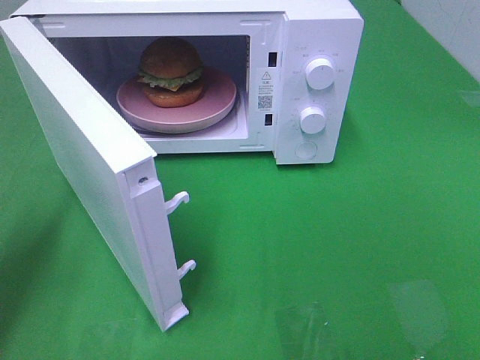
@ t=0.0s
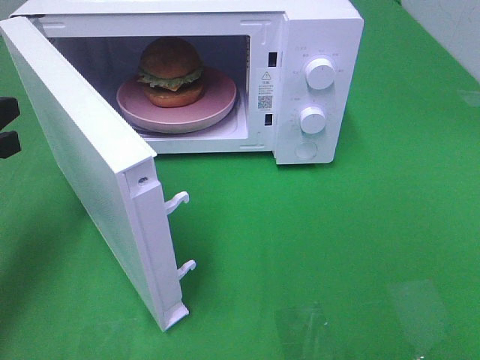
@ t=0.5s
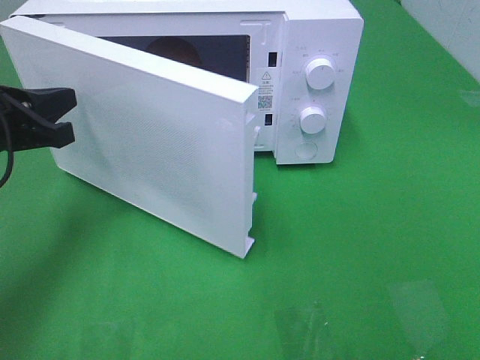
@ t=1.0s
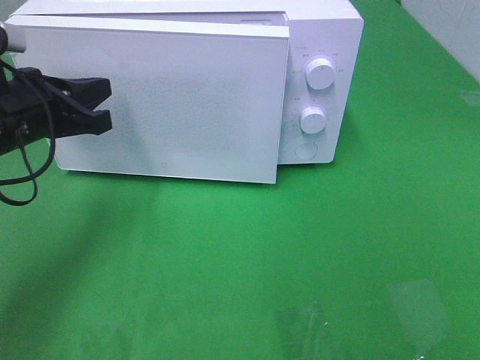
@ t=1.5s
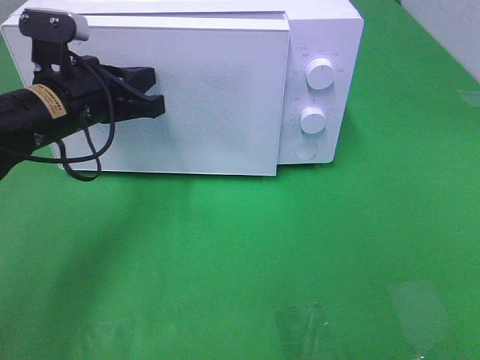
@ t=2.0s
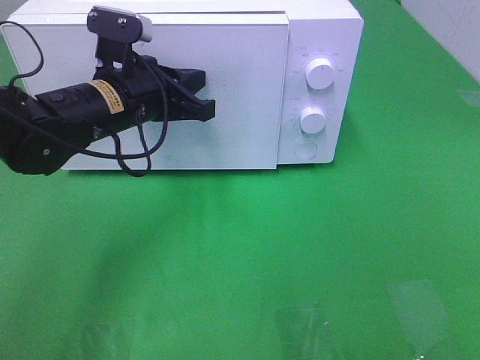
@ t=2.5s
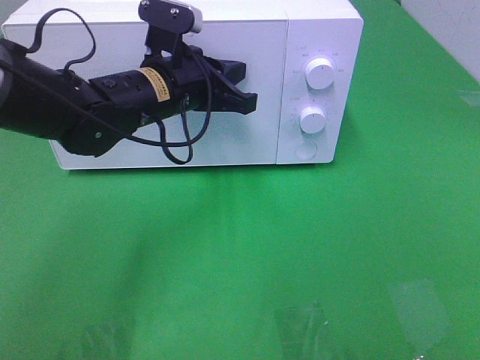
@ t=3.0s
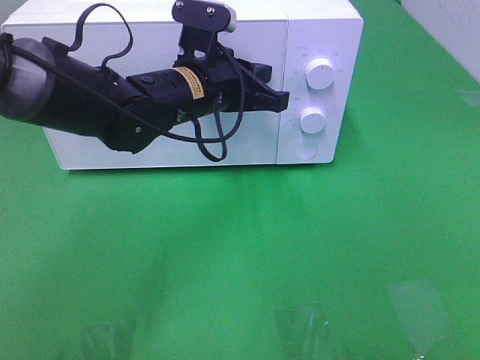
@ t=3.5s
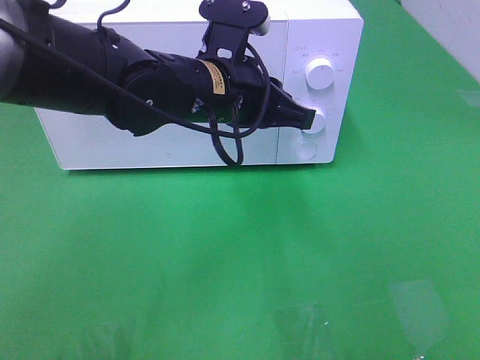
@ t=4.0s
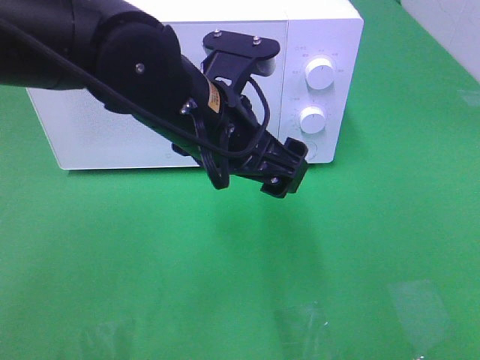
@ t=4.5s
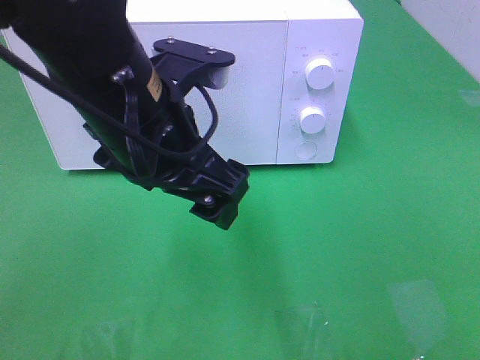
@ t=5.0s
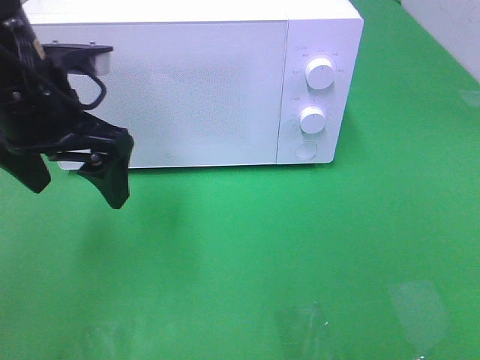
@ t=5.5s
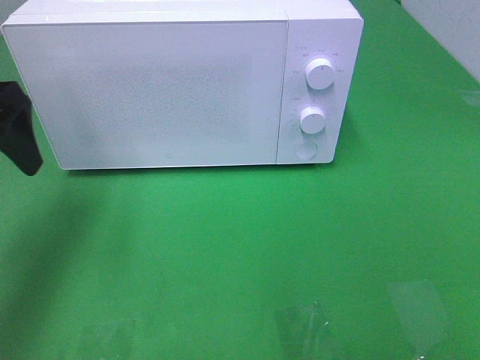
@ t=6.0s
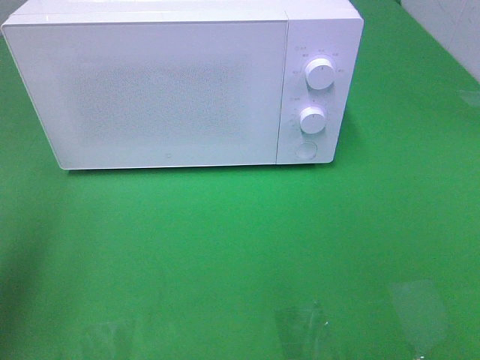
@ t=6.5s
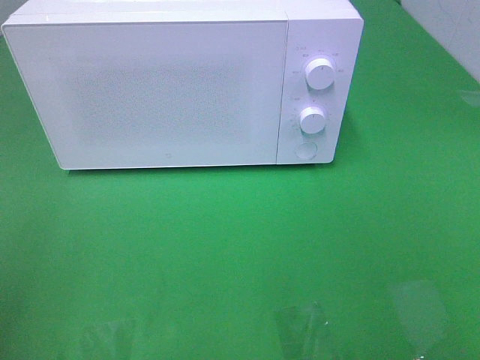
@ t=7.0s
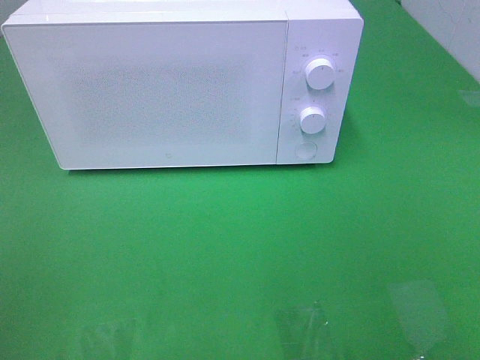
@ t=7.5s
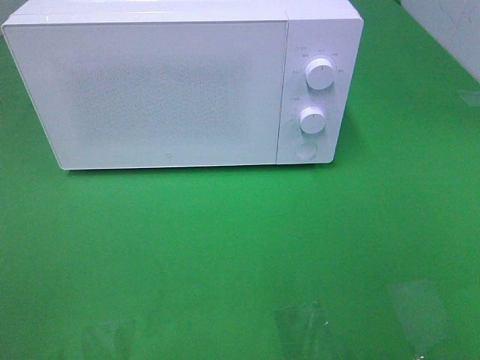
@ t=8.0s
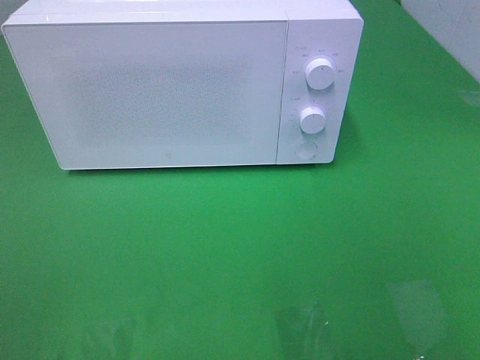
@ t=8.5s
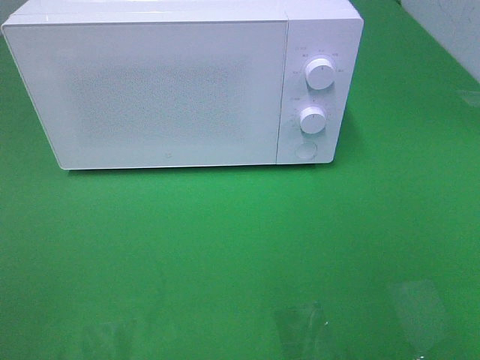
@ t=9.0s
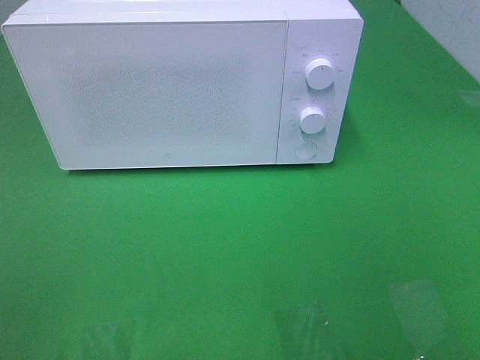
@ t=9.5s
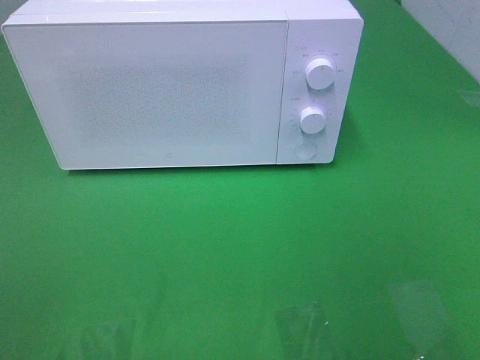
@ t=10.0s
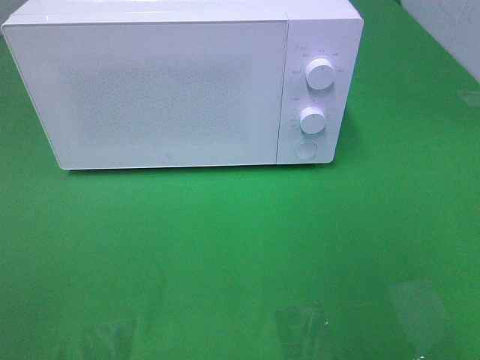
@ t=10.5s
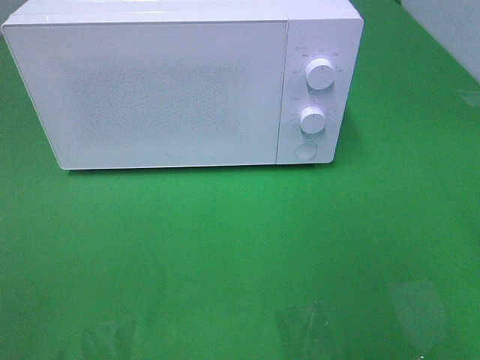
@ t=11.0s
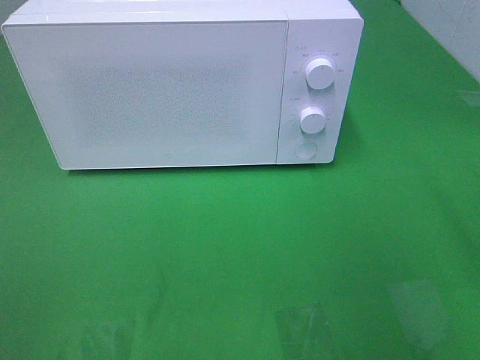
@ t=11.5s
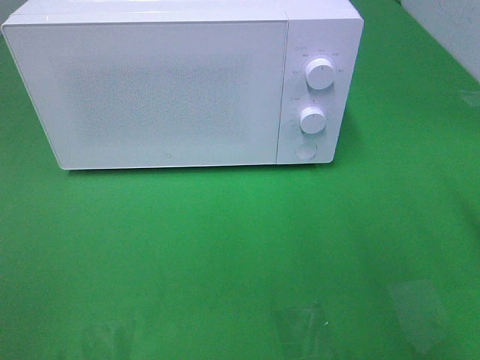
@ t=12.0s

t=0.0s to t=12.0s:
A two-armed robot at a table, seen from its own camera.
Task of the whole recording: Heat the burger.
Step, t=0.0s to t=3.5s: Left hand: close the microwave door.
t=0.0s to t=2.0s: The left gripper goes approximately 20 cm to the right and forward.
t=2.0s to t=4.0s: The left gripper moves to the right, some 15 cm.
t=4.0s to t=6.0s: The left gripper heads to the left, covering some 25 cm, and opens its fingers.
t=6.0s to t=8.0s: The left gripper moves backward, approximately 30 cm.

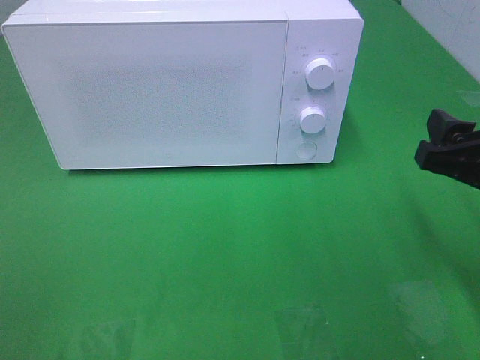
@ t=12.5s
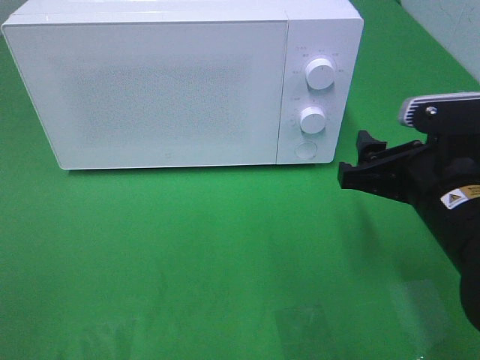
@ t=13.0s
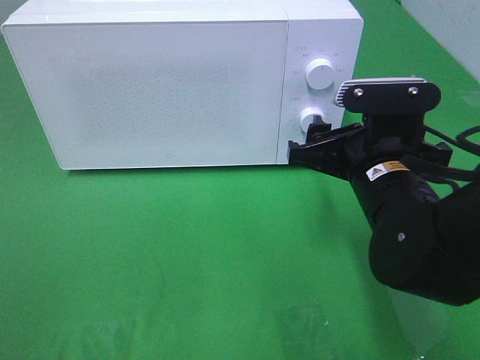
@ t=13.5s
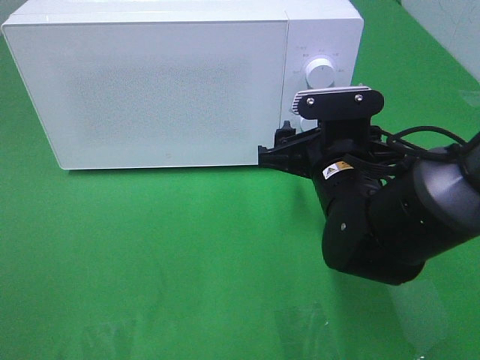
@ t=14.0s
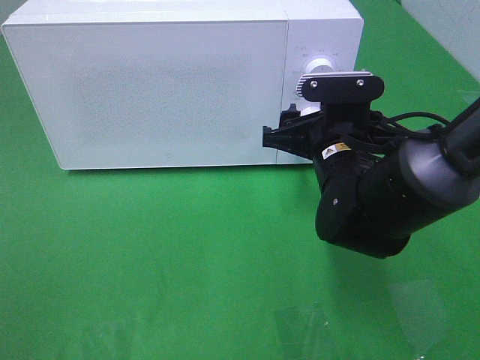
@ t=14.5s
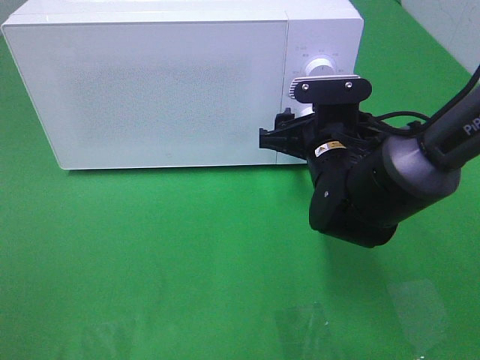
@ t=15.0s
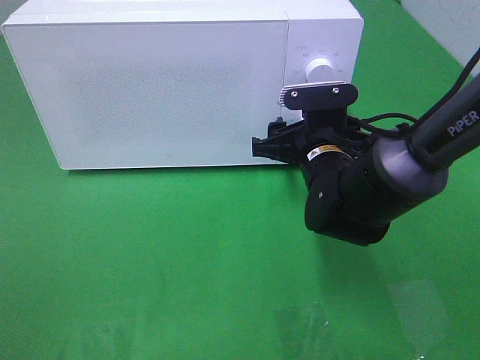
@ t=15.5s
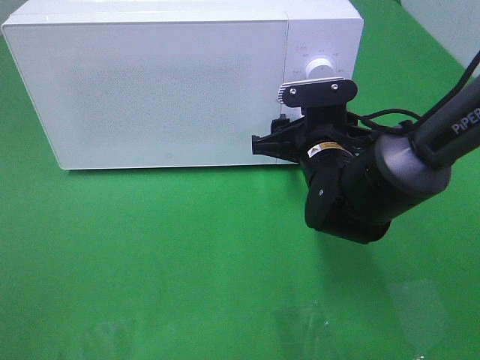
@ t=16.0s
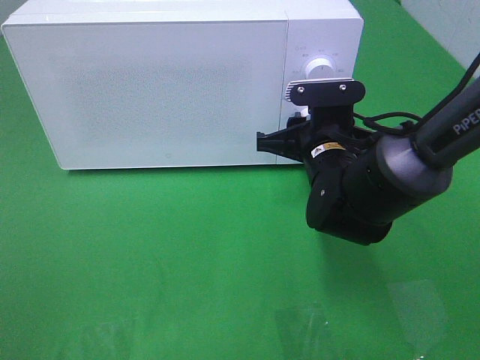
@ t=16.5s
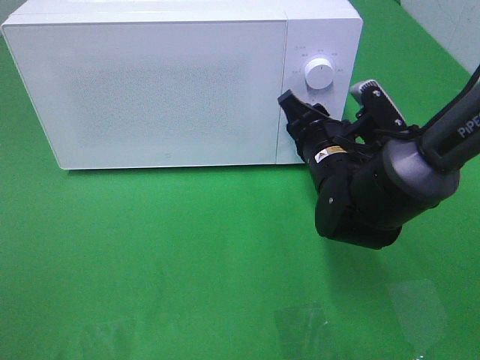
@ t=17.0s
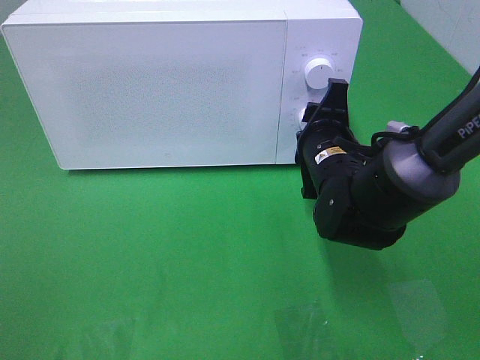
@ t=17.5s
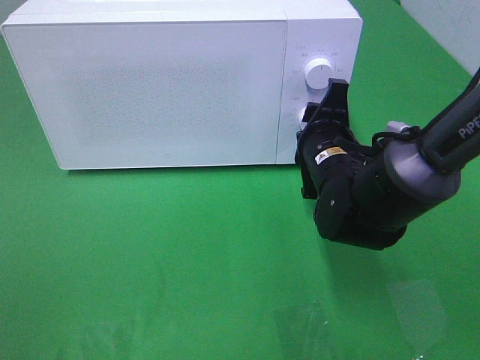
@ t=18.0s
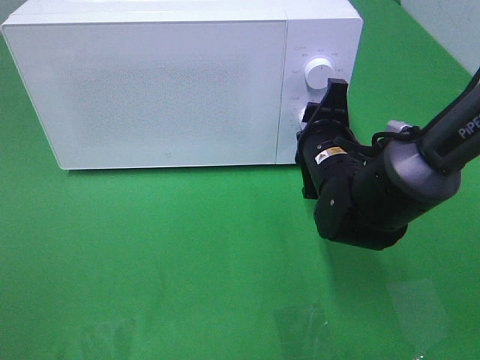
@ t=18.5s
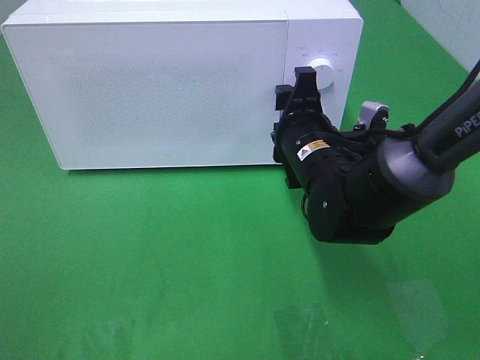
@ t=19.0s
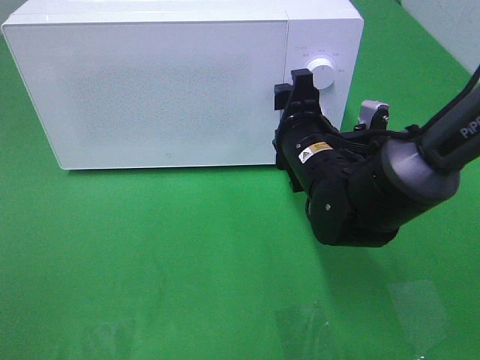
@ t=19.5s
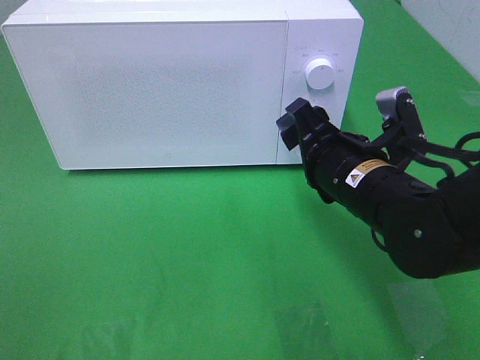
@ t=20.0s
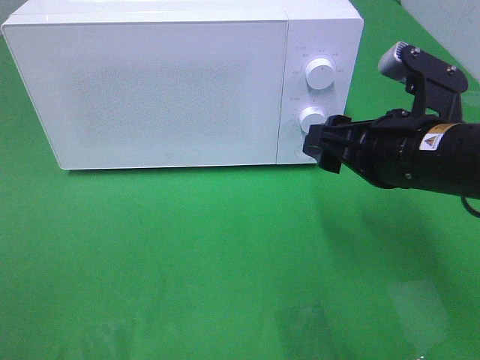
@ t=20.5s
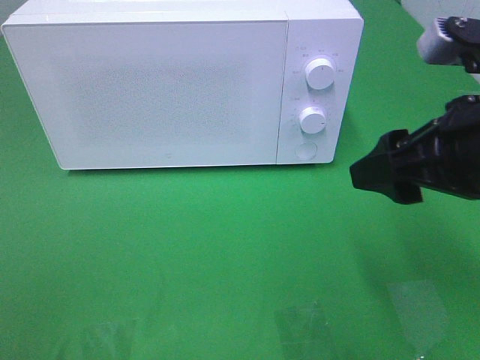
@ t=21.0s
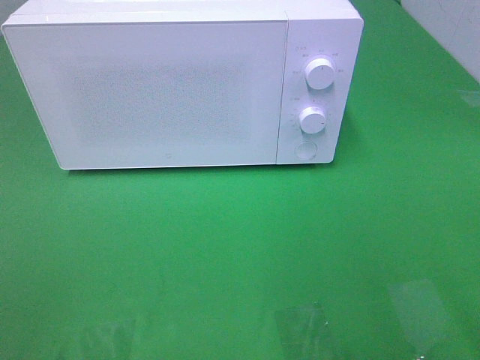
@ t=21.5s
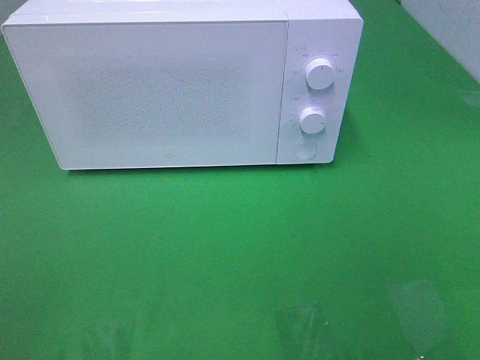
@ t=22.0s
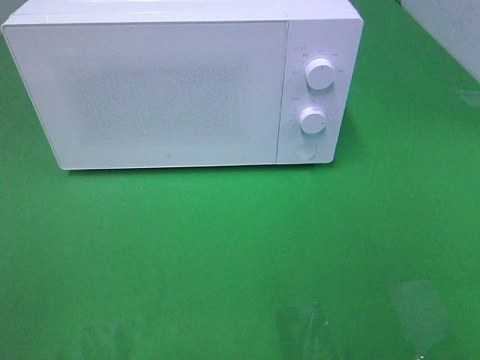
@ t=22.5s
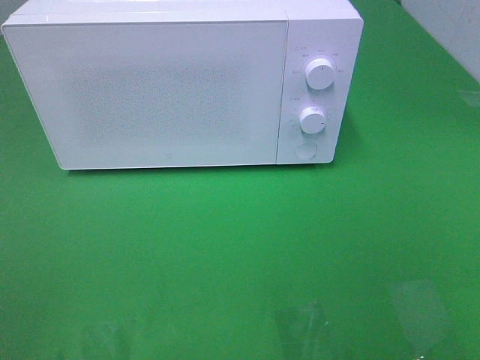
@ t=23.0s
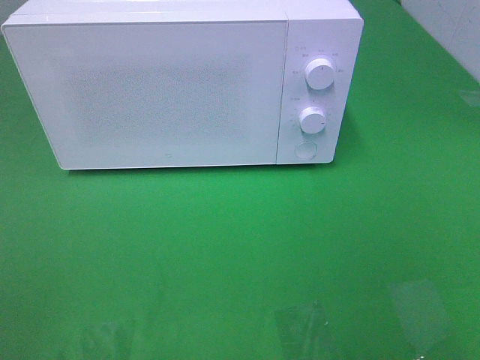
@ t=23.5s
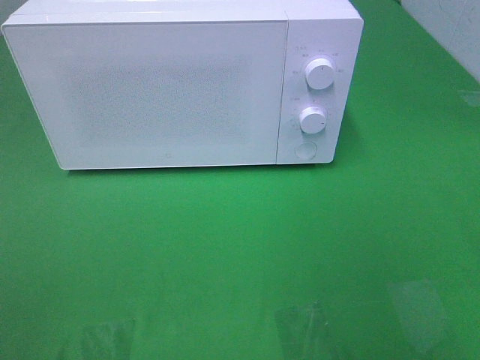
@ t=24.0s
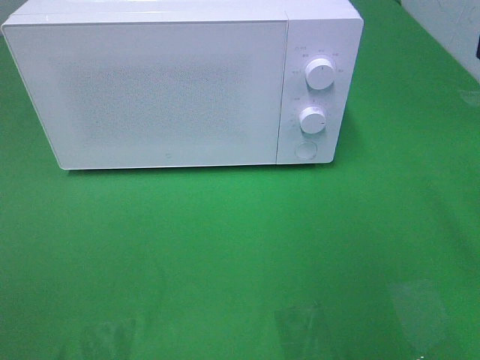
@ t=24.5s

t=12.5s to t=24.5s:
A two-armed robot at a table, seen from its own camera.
Task of the whole recording: Heat the burger.
Step, t=12.5s to t=18.5s: Right hand: twist timer button.
t=12.5s to t=14.5s: The right gripper moves to the left, forward and downward, approximately 20 cm.
t=14.5s to t=16.5s: The right gripper closes up.
t=18.5s to t=20.5s: The right gripper goes about 15 cm upward, backward and to the right.
t=20.5s to t=22.5s: The right gripper travels backward and to the right by about 25 cm.

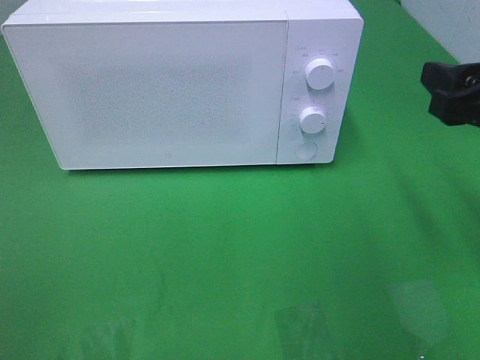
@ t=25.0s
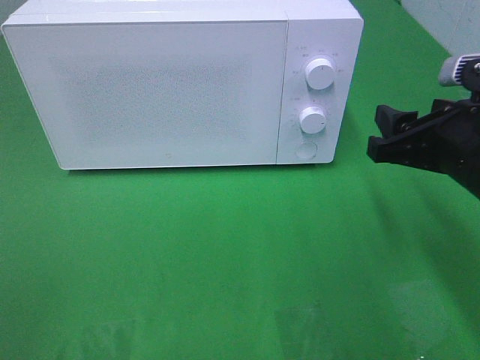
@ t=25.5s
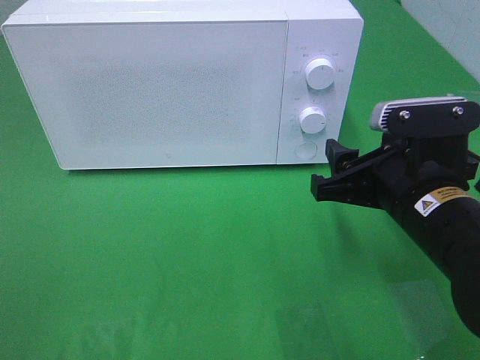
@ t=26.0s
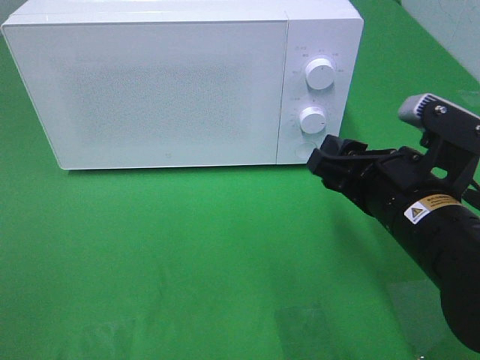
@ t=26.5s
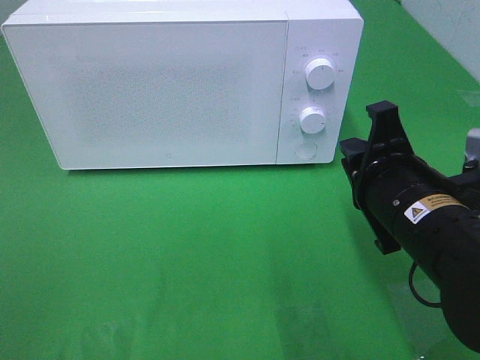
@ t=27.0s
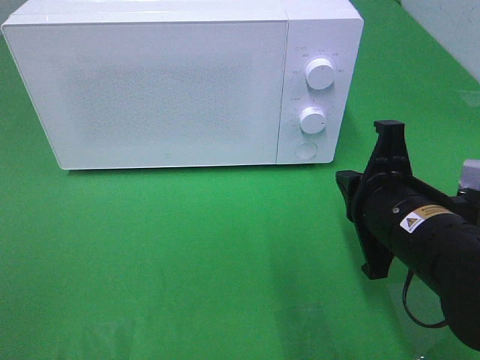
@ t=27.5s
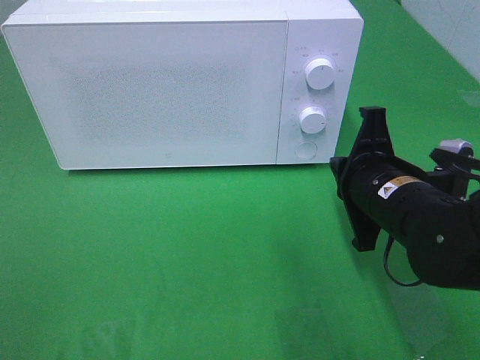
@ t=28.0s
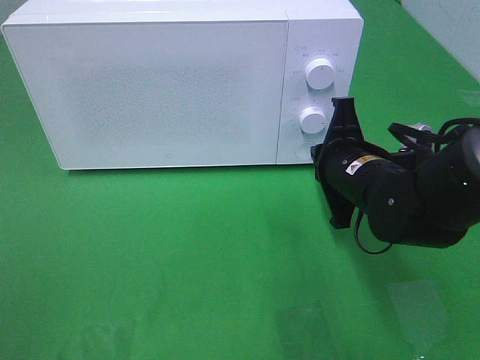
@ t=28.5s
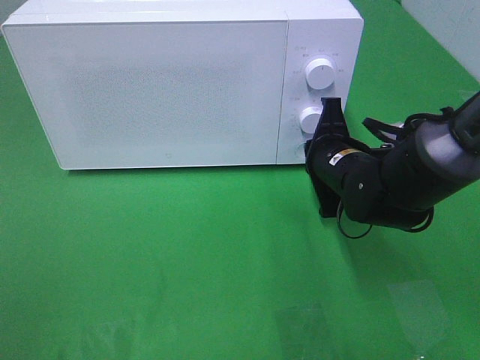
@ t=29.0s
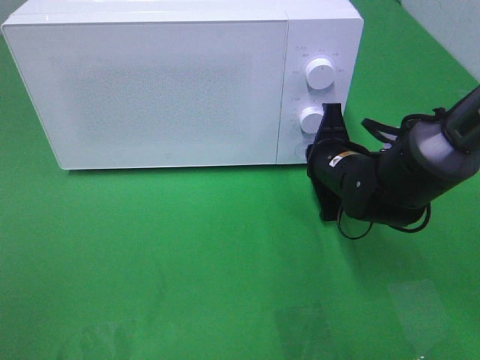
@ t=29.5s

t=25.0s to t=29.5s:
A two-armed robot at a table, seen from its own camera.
Task of the whole recording: Heat the burger.
t=25.0s to t=27.0s: The right gripper goes about 15 cm to the left and downward, and closes up.
t=27.0s to t=29.5s: The right gripper heads forward and downward, covering approximately 15 cm.
